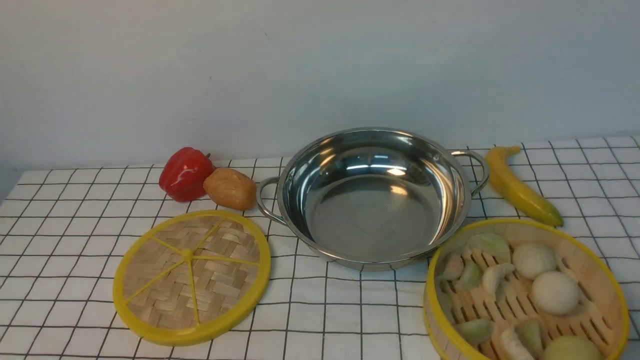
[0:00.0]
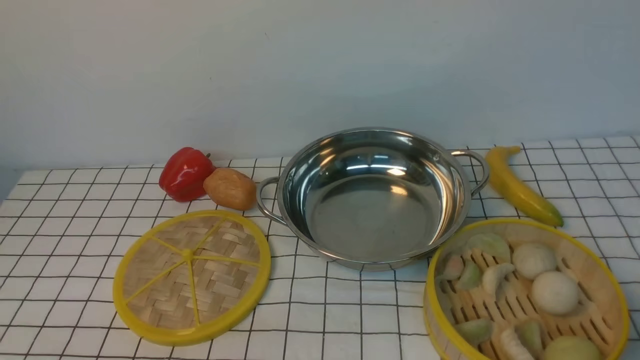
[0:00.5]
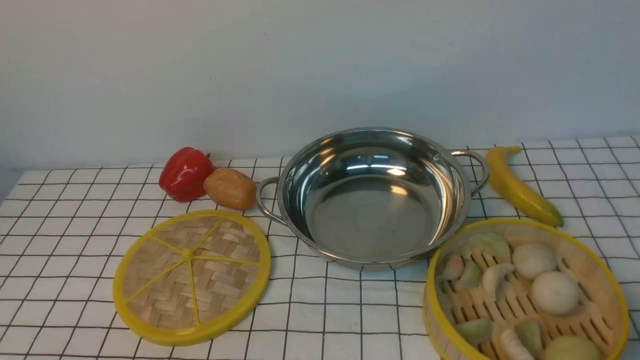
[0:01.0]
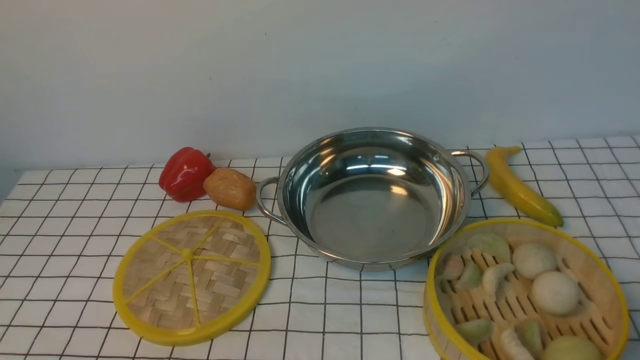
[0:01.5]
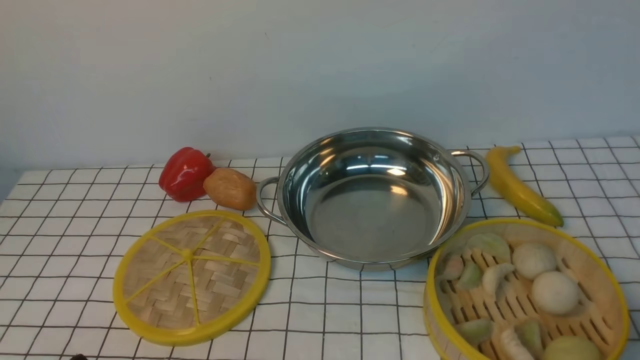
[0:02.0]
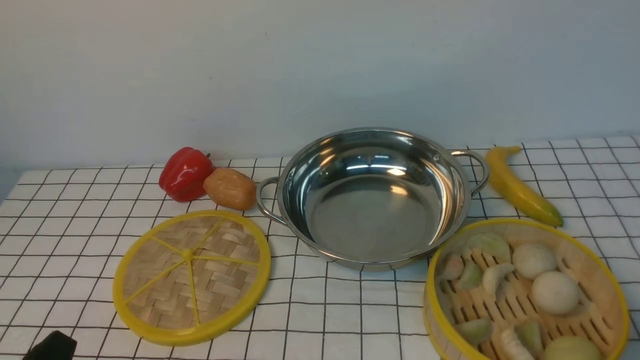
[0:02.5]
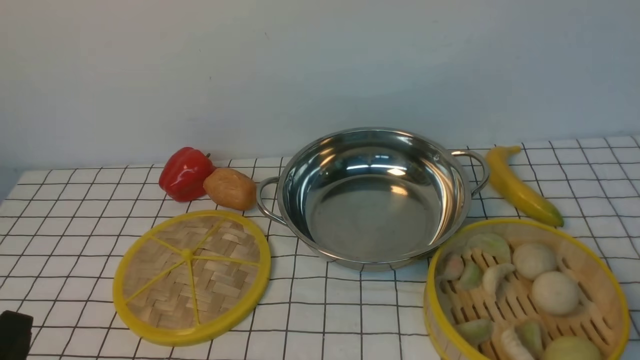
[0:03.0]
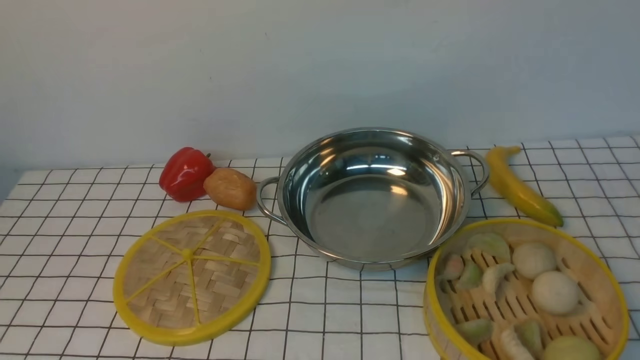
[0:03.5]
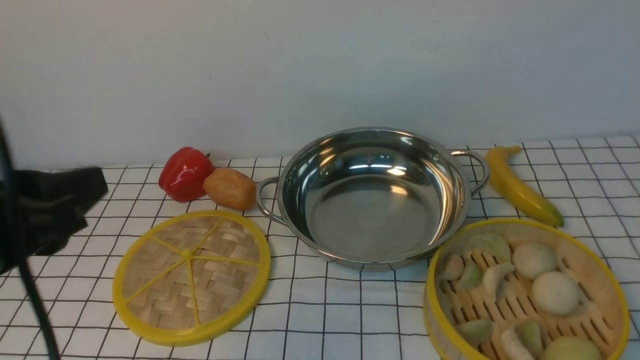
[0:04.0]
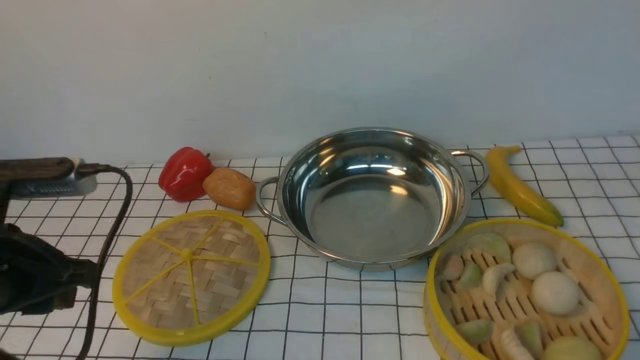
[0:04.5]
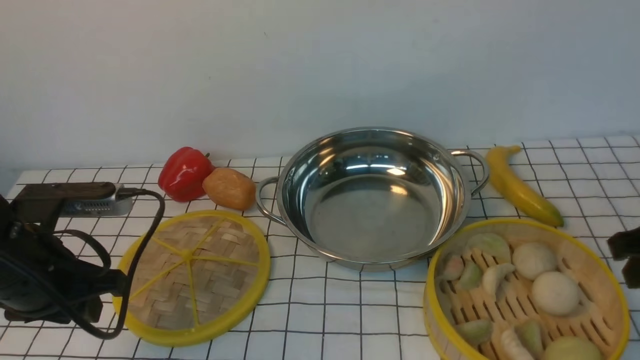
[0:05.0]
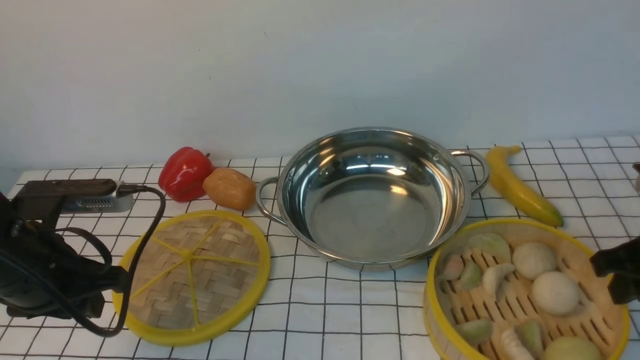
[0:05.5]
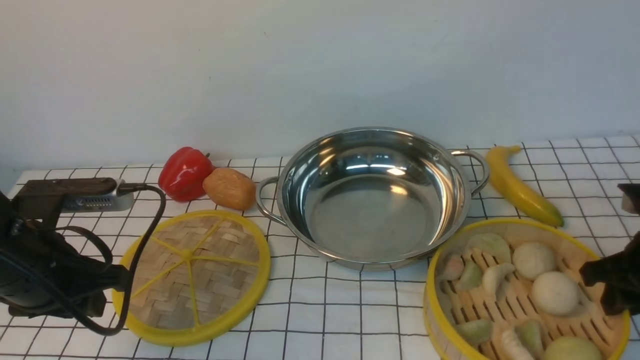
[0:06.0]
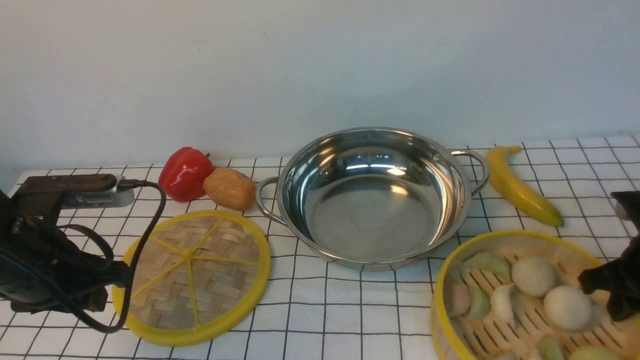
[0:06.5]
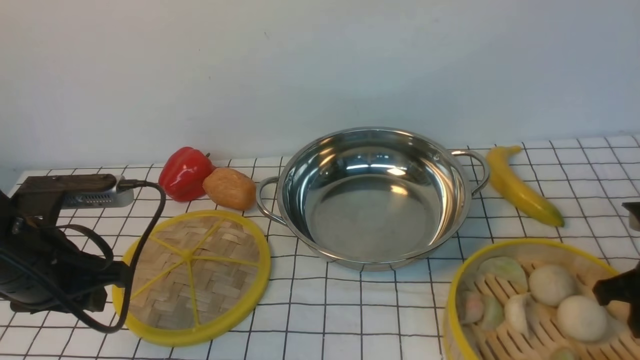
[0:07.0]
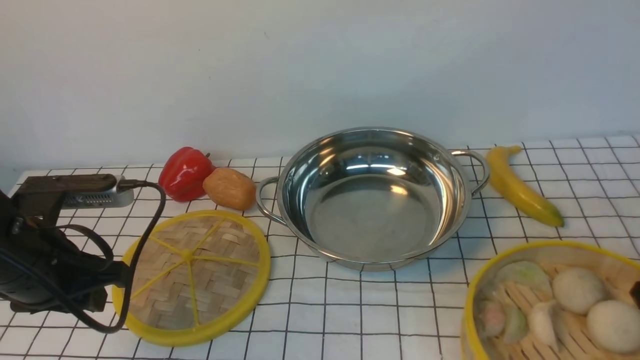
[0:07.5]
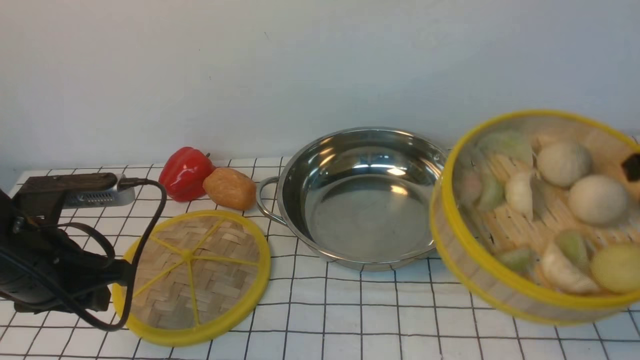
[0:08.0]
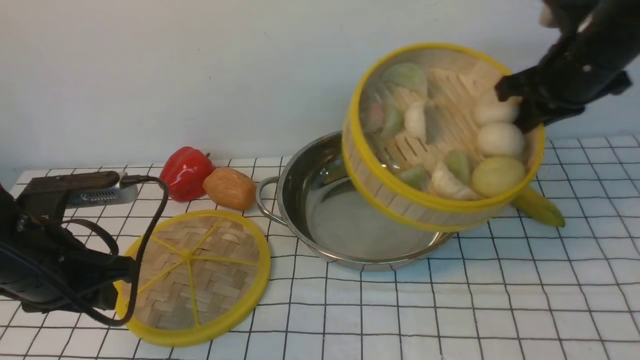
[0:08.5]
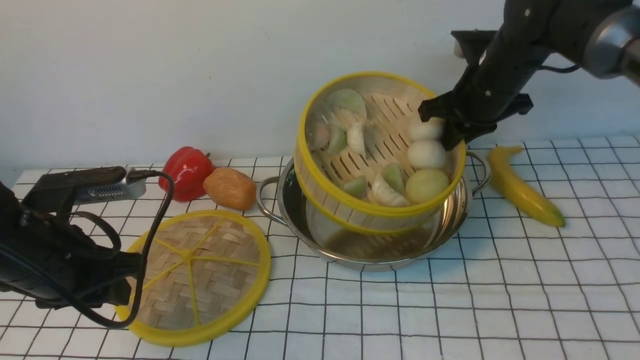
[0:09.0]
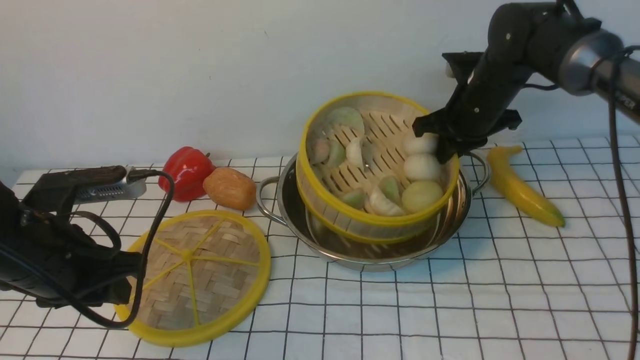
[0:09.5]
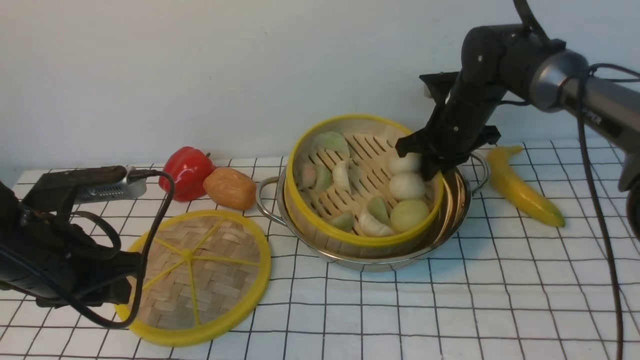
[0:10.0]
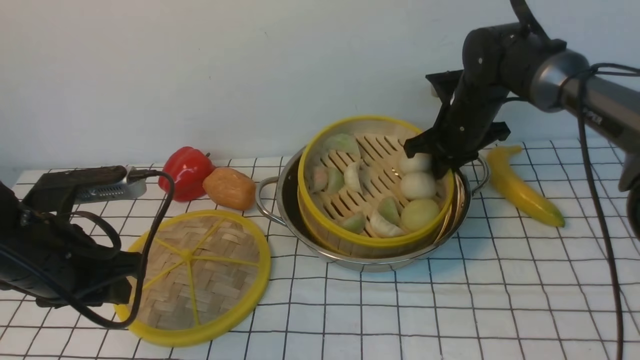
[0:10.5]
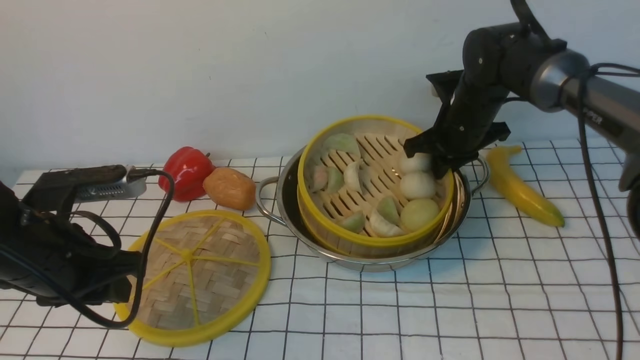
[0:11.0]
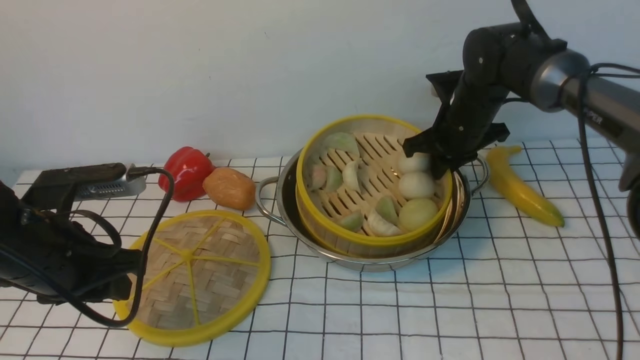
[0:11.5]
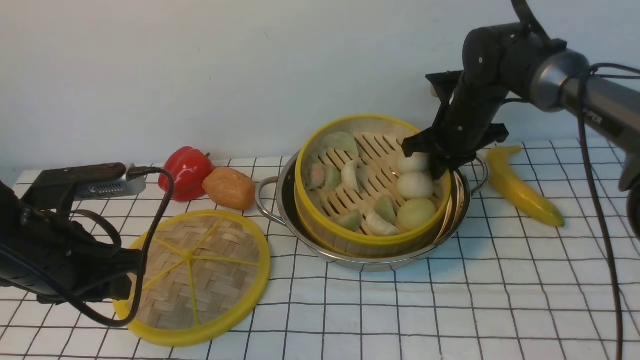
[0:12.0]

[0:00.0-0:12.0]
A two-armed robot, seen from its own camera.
Task of the whole recording: place the steamer in the pot on the white tablecloth, and put the lid on the steamer.
Step, 0:00.0 to 0:07.5: use the right arm to lift the steamer closest to it.
0:02.0 to 0:04.0: The left gripper shifts roughly 20 cm upward and forward.
0:04.0 to 0:06.0: The left gripper moves downward and forward, some 15 cm; the right gripper shifts approximately 25 cm downward and forward.
0:06.0 to 0:08.0: The right gripper travels upward by roughly 15 cm, and closes up.
0:08.0 to 0:10.0: The right gripper travels forward, to the left and downward by some 25 cm.
0:10.0 to 0:12.0: Neither gripper changes place.

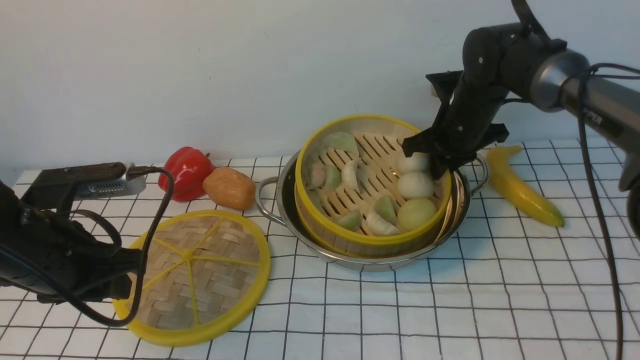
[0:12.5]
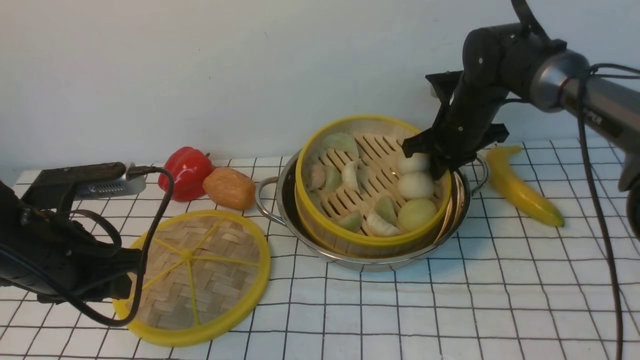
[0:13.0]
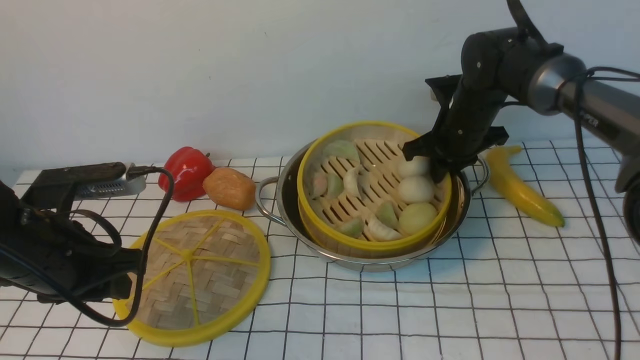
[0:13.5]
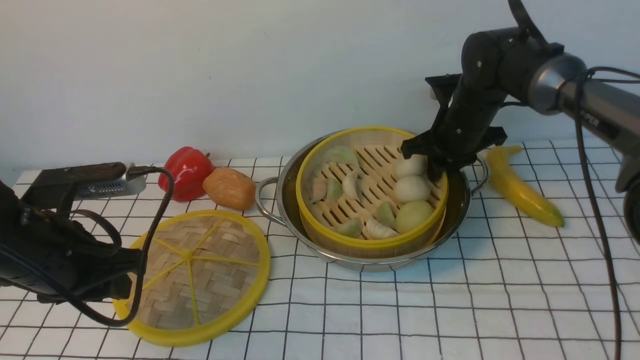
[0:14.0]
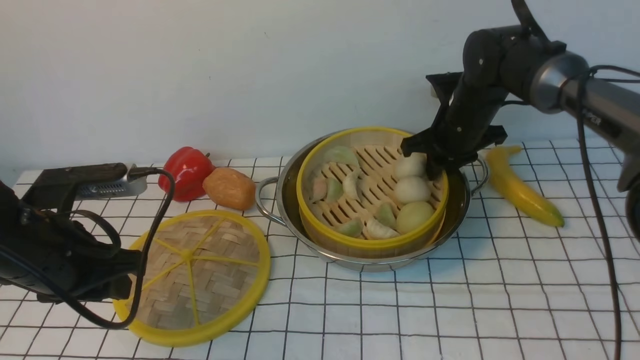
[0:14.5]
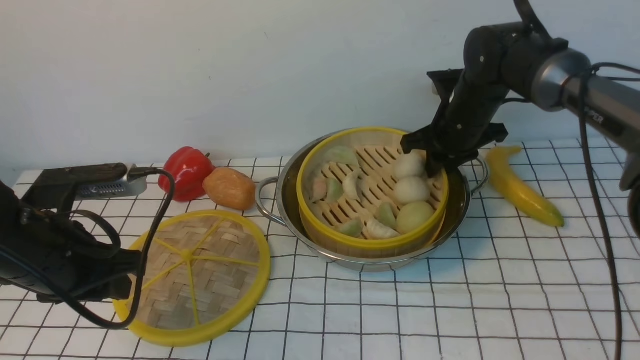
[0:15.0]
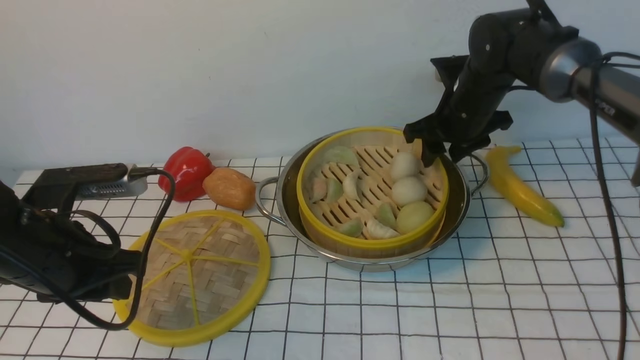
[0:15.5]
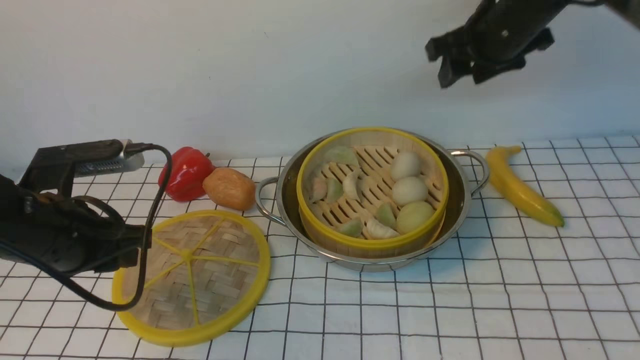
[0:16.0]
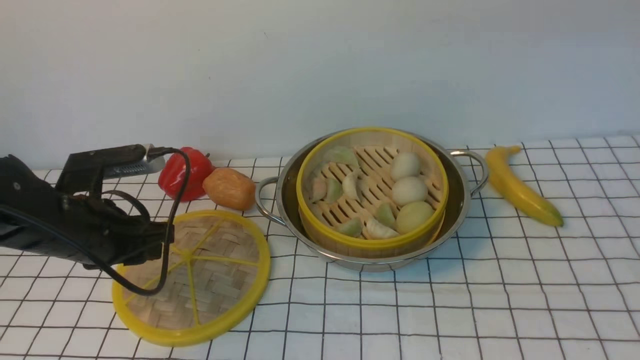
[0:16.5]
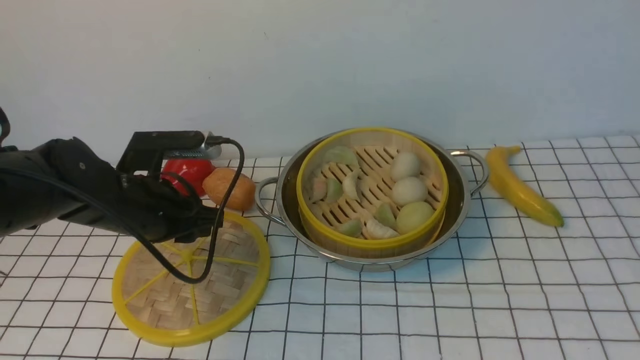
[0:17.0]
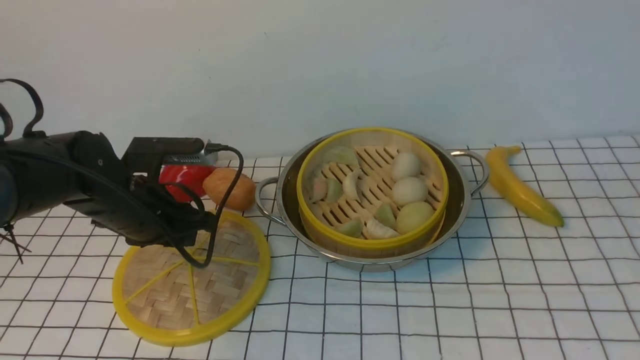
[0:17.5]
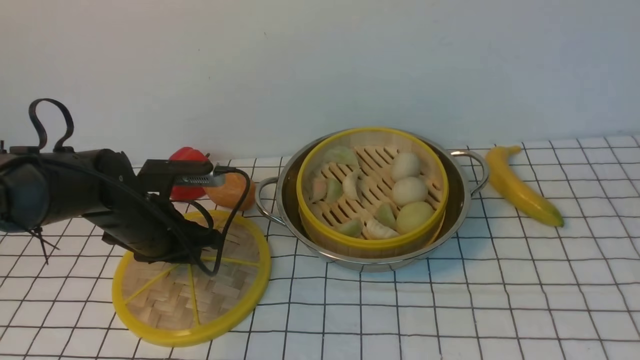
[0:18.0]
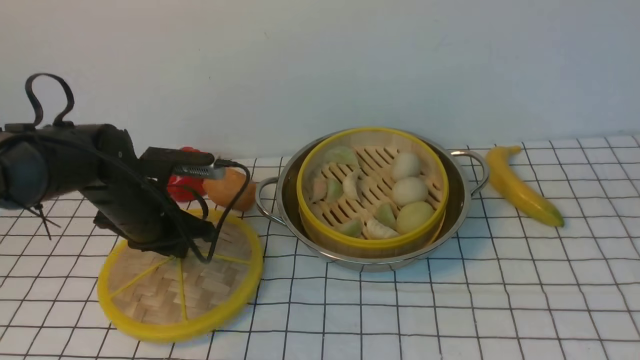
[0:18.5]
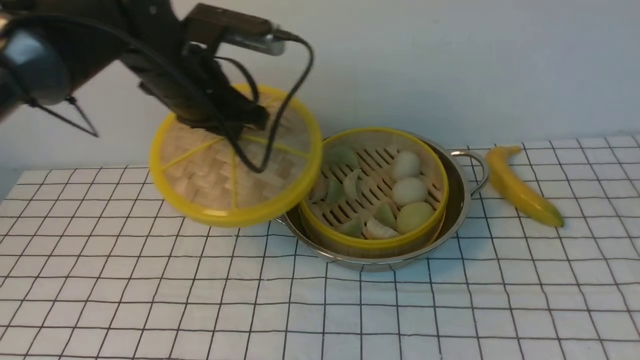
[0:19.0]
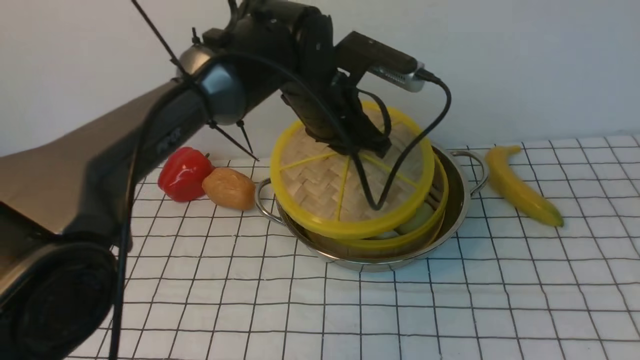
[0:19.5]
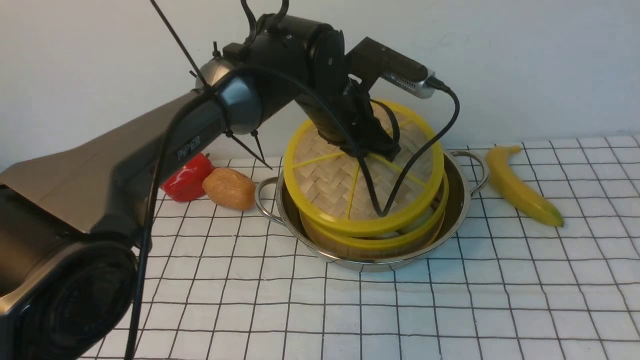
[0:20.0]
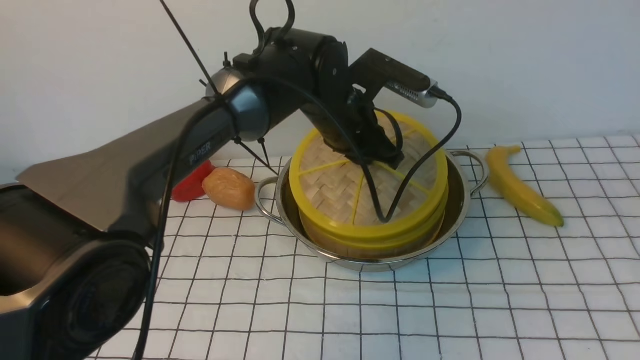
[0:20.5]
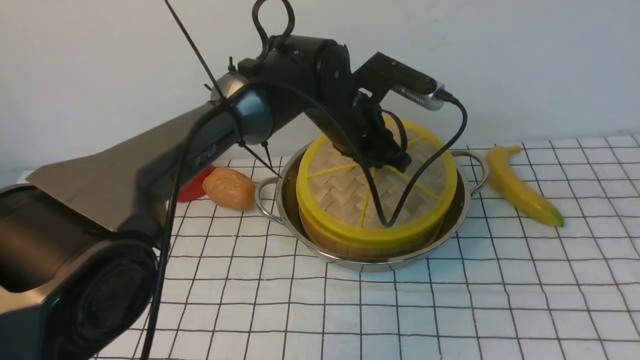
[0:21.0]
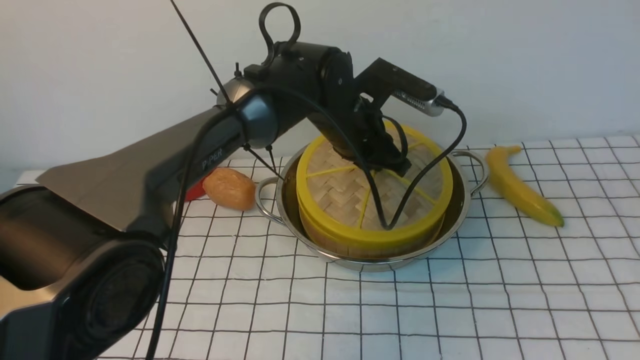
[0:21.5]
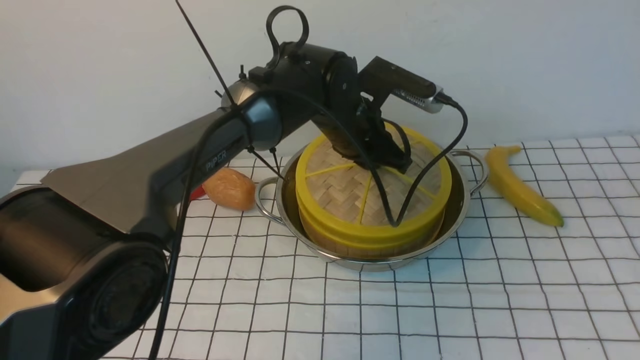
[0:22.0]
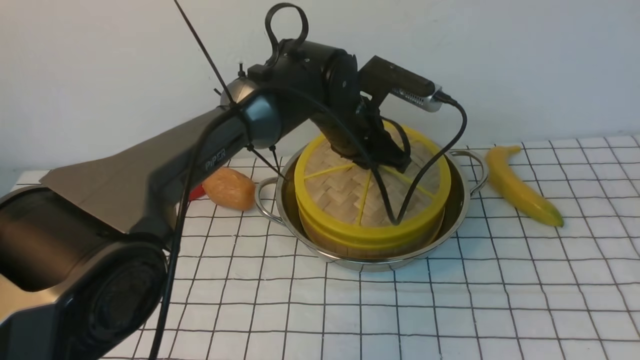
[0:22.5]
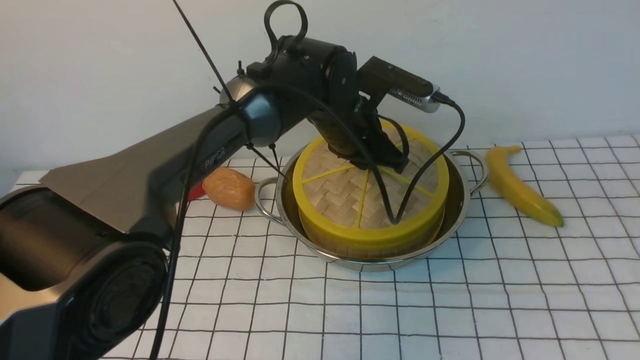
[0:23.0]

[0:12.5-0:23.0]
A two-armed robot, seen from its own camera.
Task of the whole recording: place the steamer in the pot on the white tablecloth, and put the lid on the steamer.
Step, 0:12.5 to 0:15.5: use the right arm to put the steamer into the iron steamer pot in the middle.
Step, 0:16.0 to 0:18.5: use the left arm to lift the lid of the steamer.
0:12.5 to 0:14.5: Both grippers stay put.
0:14.5 to 0:16.5: The left gripper ends up about 5 cm from where it was. Meanwhile the right gripper goes roughly 40 cm upward and backward, and opens, then closes again.
0:16.5 to 0:19.0: The right gripper travels backward and downward by some 20 cm, while the left gripper shifts approximately 20 cm to the right, forward and upward, and closes up.
0:19.0 to 0:21.0: The left gripper is displaced to the right and downward by roughly 15 cm.
0:21.0 to 0:23.0: Both grippers stay put.
